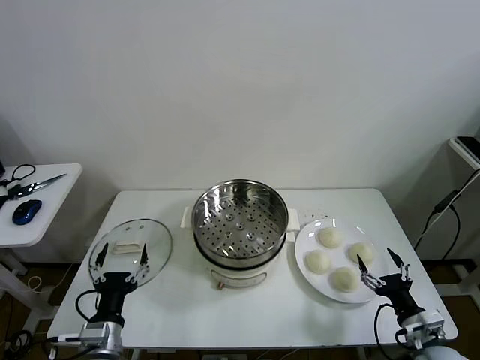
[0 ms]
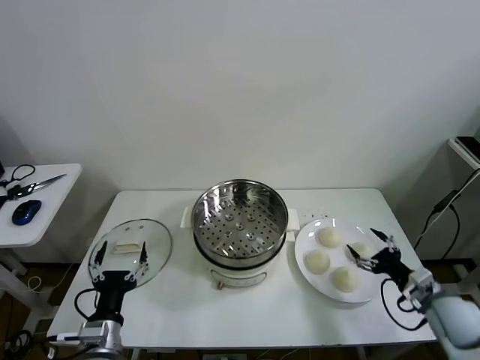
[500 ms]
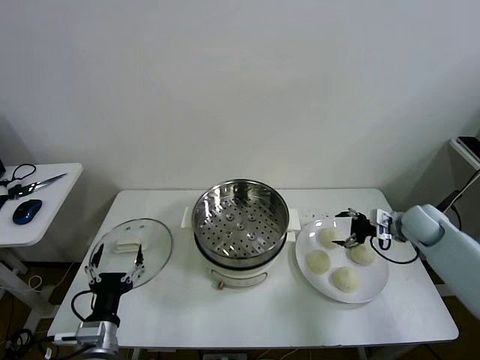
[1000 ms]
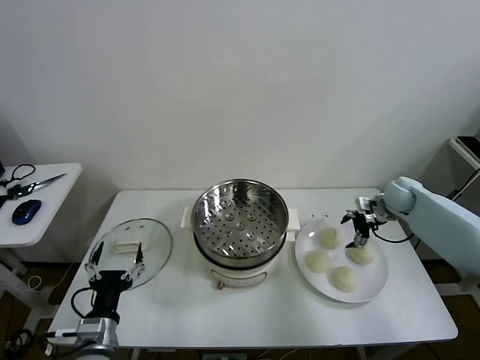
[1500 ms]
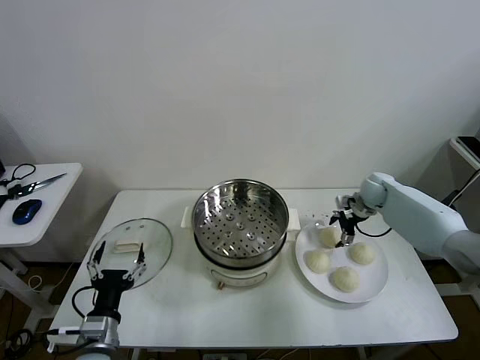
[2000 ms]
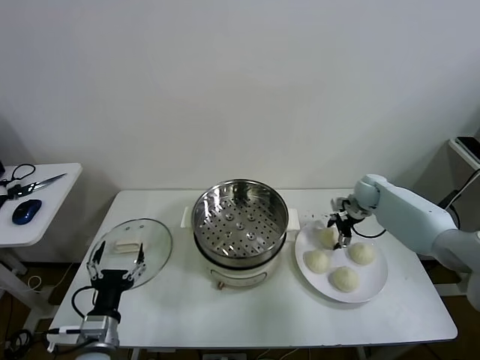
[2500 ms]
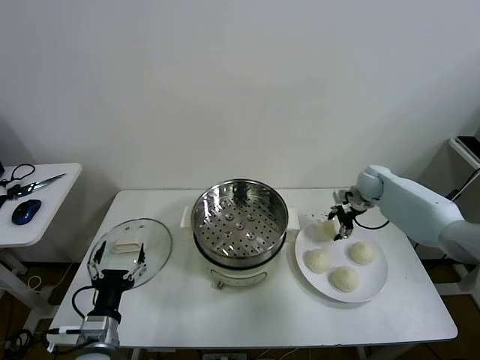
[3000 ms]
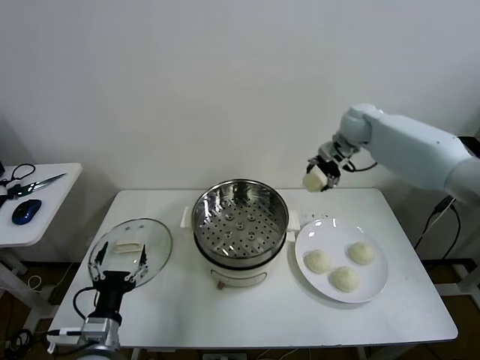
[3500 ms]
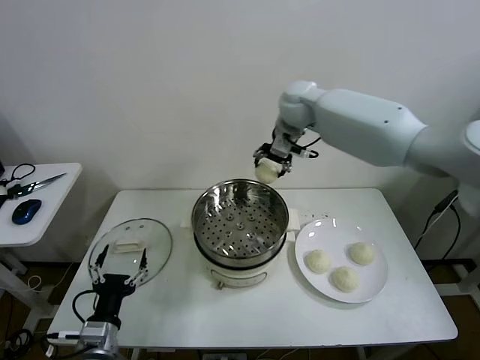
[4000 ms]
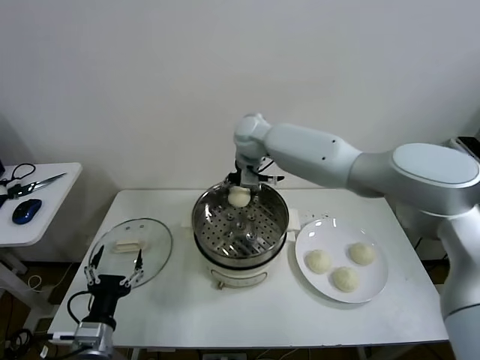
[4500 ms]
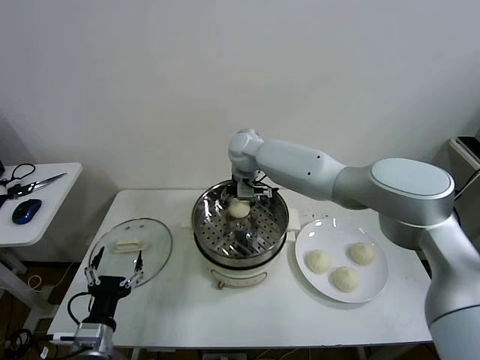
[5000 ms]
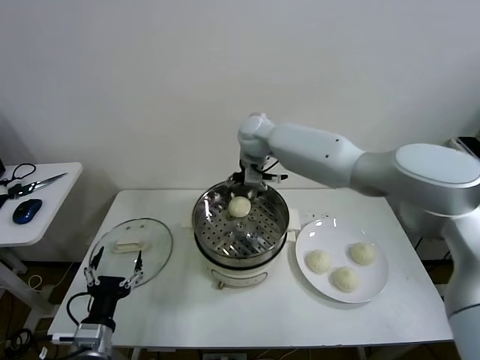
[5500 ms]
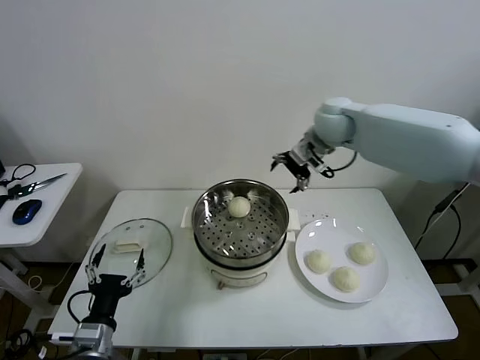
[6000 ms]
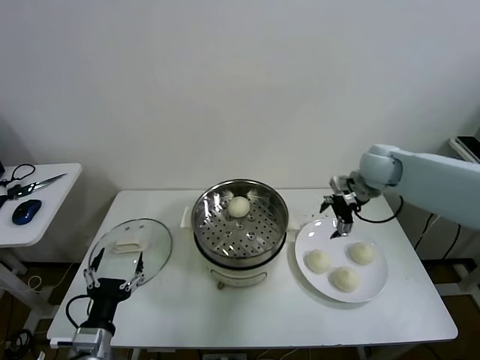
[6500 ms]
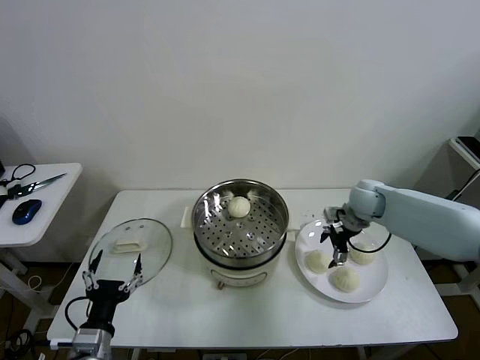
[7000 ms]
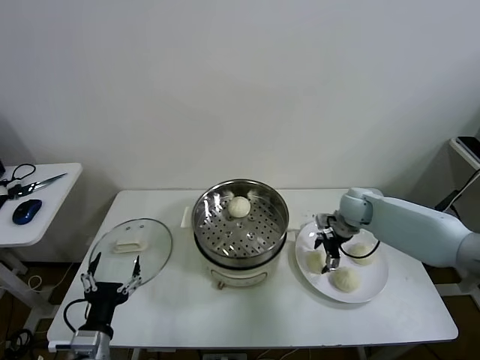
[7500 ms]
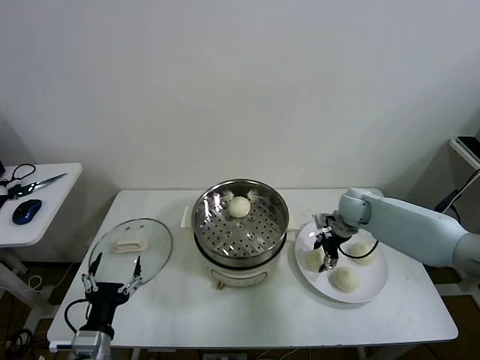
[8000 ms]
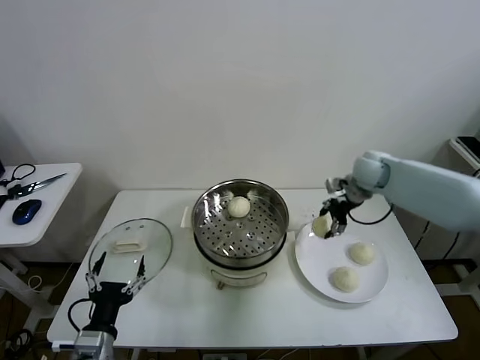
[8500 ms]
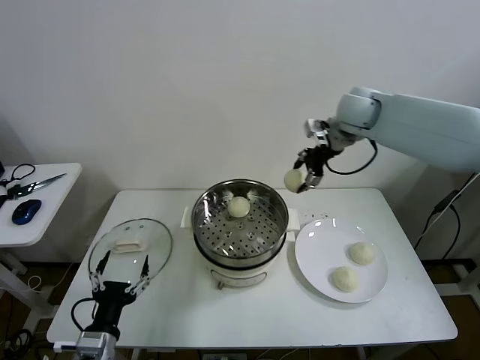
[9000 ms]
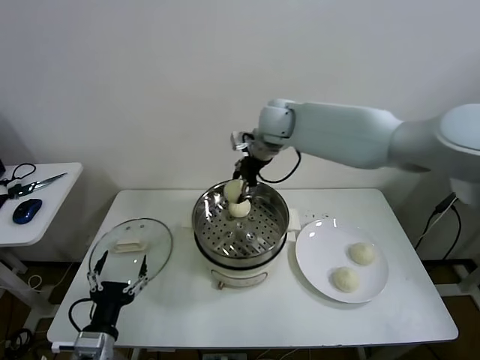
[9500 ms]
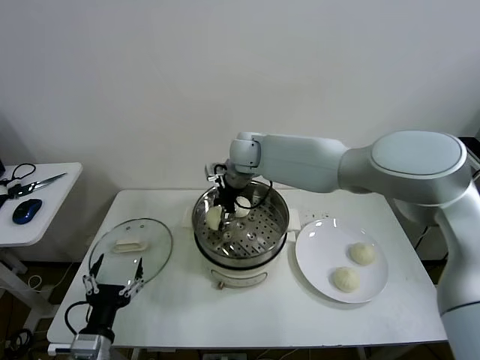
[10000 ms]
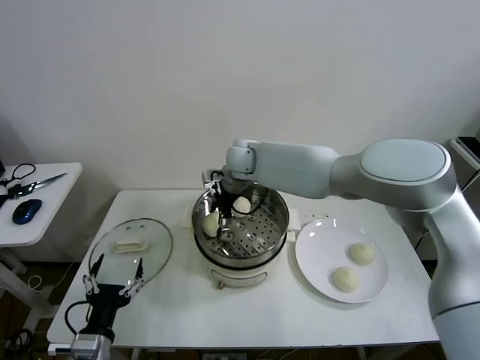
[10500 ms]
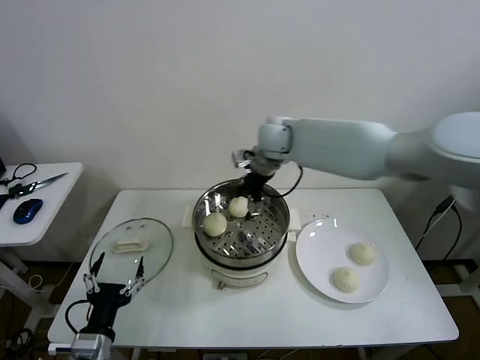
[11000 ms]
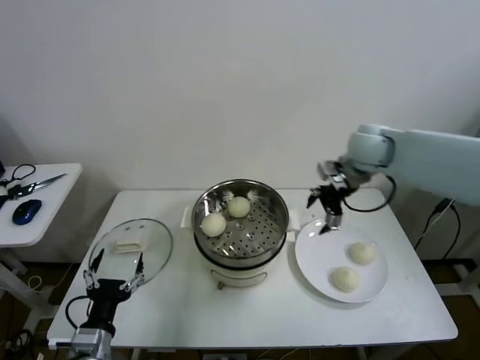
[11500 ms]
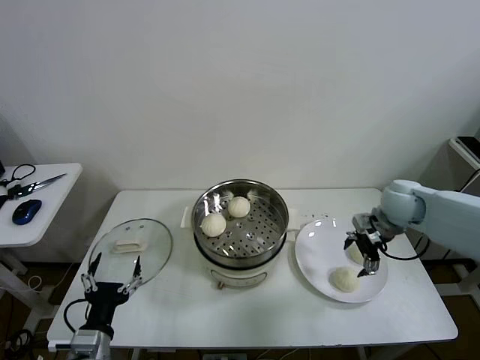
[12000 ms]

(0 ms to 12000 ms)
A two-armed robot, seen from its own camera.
Task of the whole recording: take steamed baozi put them in steamer then cover it.
Step, 0 ms - 2500 ms: Grasp the baozi in the plate with right gripper.
Step, 3000 ms - 5000 ms: Place the baozi on the steamer with right gripper.
Step, 5500 ms - 7500 ms: Grasp the baozi in the plate with right gripper.
Step, 8000 ms - 10500 ms: Place the baozi on the steamer with right gripper.
2000 ms - 4000 ms: The right gripper heads to the left and upward, covering approximately 35 cm, and closes its fingers.
4000 ms - 6000 ms: The right gripper heads to the right, covering about 15 cm, and opens.
6000 ms - 8000 ms: The right gripper moves downward, approximately 25 cm, and closes.
8000 ms - 10000 ms: The right gripper goes roughly 35 cm to the left and upward.
10000 ms - 12000 ms: The right gripper moves to the right, approximately 35 cm, and opens up.

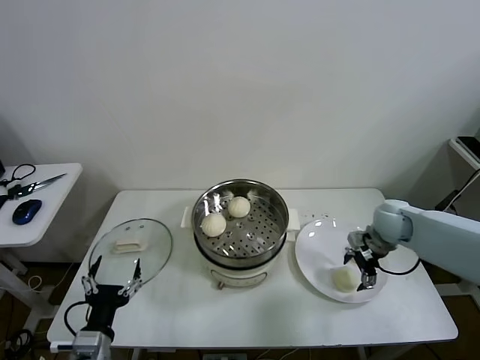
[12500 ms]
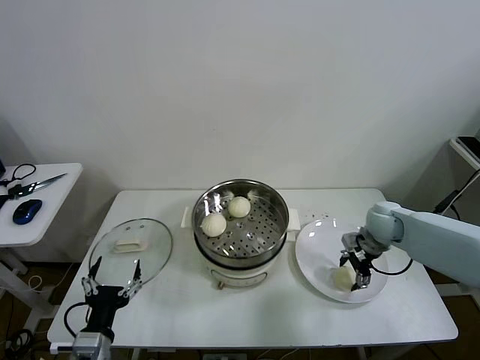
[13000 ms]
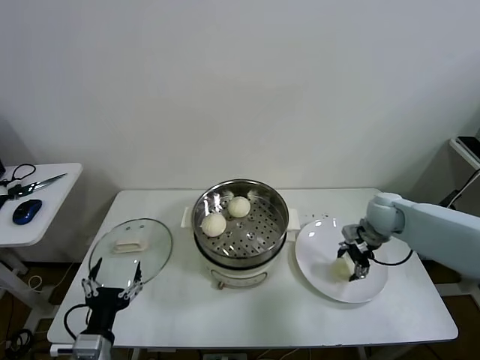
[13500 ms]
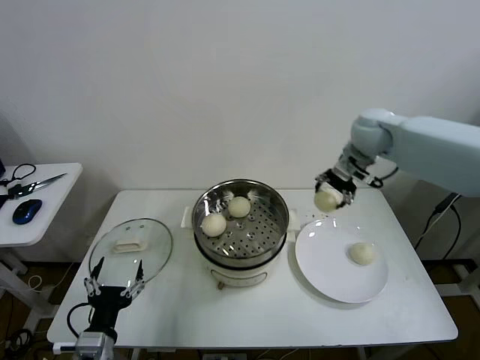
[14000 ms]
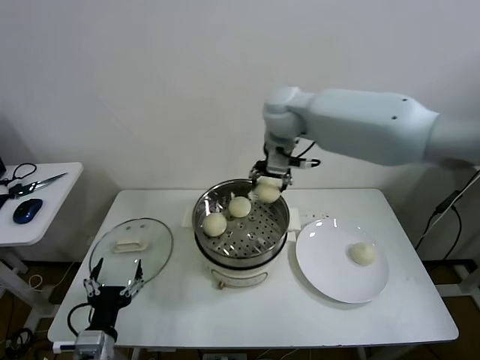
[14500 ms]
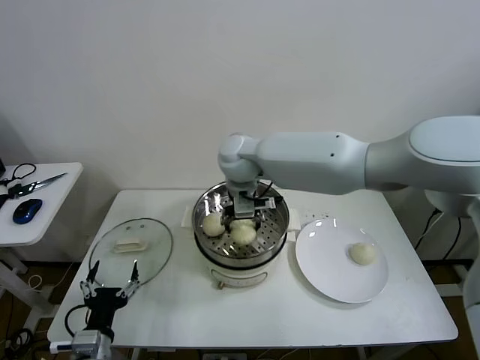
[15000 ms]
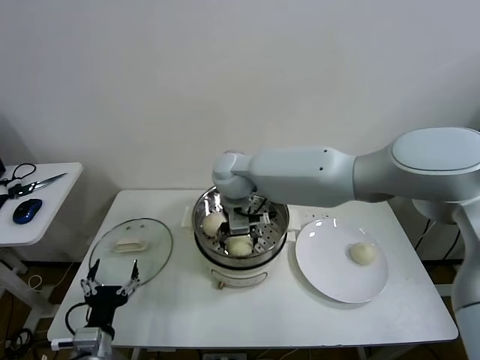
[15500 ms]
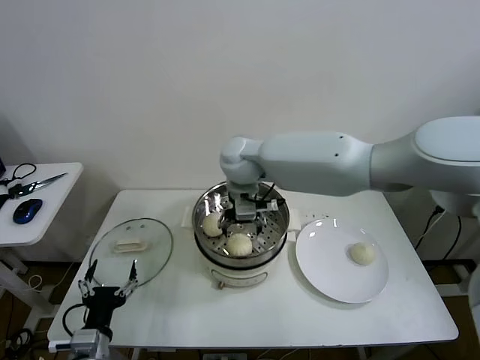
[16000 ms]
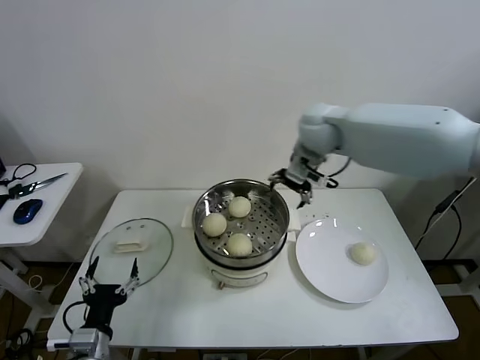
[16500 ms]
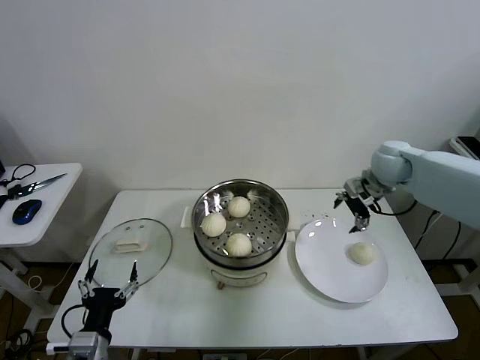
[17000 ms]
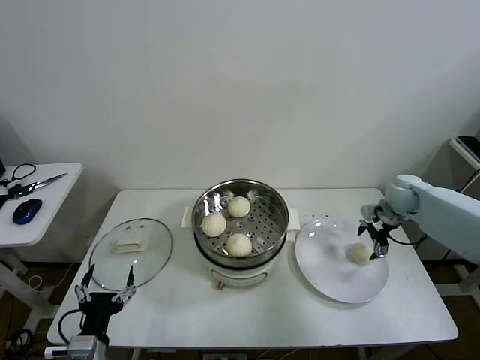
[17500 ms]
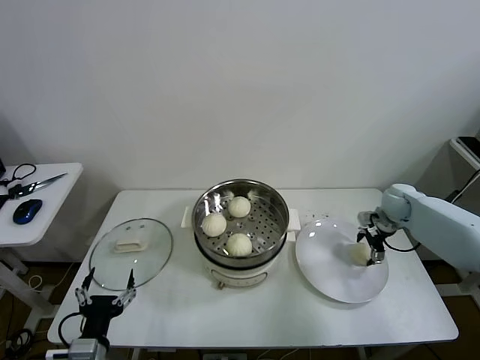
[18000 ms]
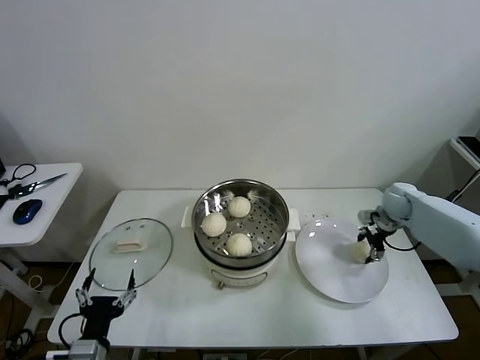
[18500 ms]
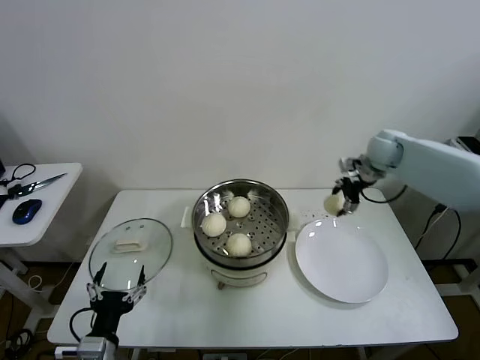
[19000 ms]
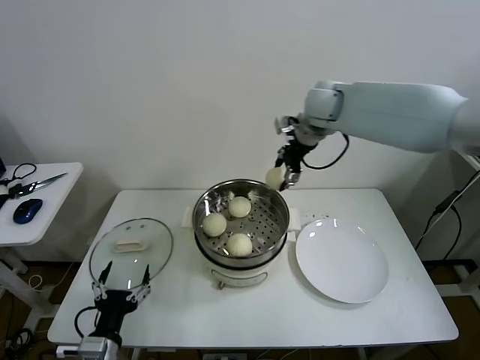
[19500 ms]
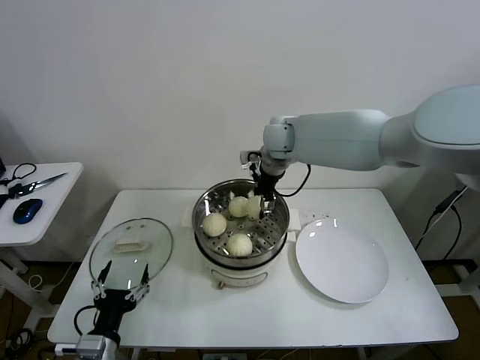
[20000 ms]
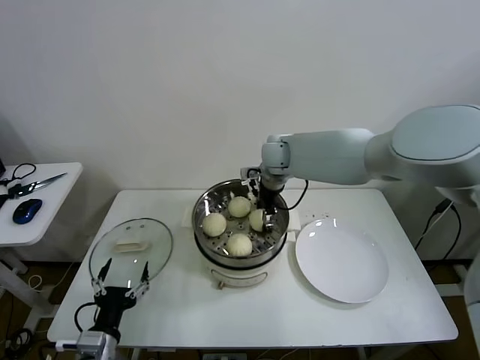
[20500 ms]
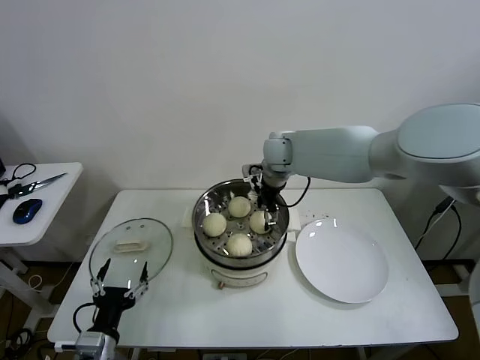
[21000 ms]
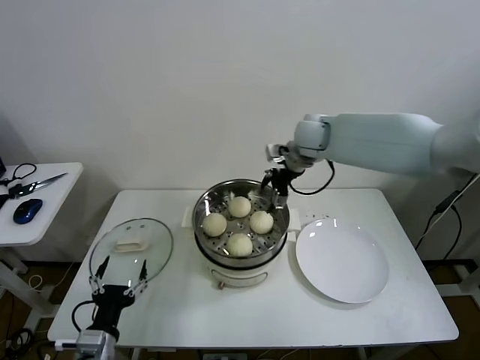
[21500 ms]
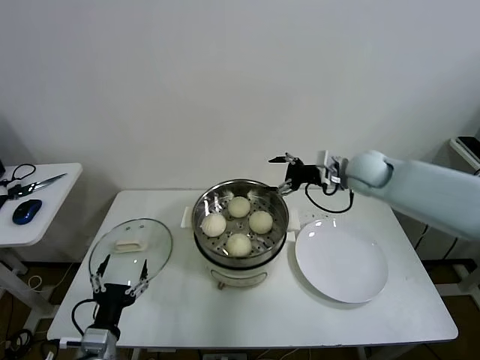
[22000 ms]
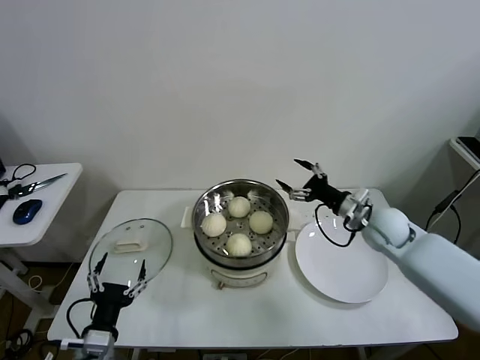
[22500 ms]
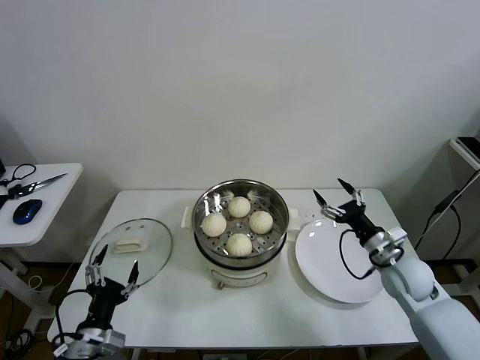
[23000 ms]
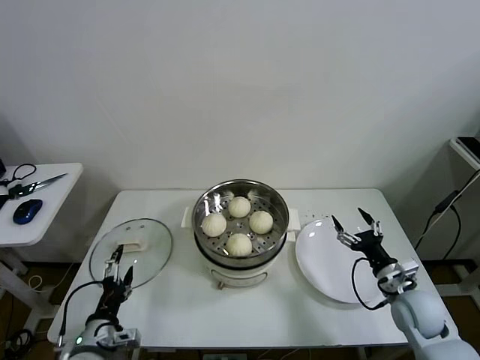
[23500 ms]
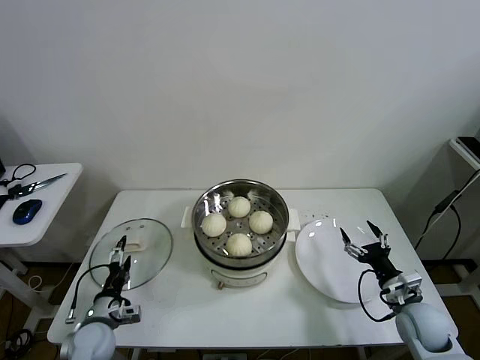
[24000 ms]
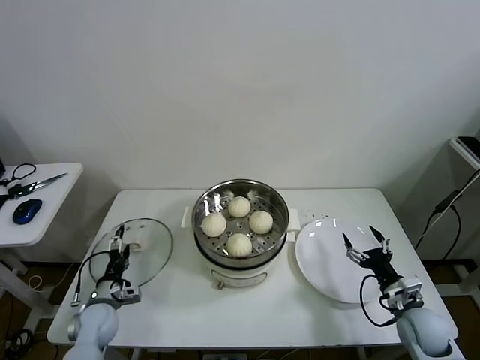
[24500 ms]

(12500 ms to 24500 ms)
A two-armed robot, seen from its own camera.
Task of the whole recording: take steamed baozi put them in steamer then cover it.
Step, 13500 ms - 15500 ms: Place the baozi on the steamer with right gripper.
Step, 16000 ms - 18000 ms: Grasp the baozi in the plate with right gripper.
Step, 19000 ms - 20500 ms: Place the baozi on the steamer with right gripper.
12500 ms - 14500 ms: The right gripper moves to the left and upward, roughly 40 cm, and closes its fingers.
14500 ms - 16500 ms: The right gripper moves to the right, about 10 cm, and opens its fingers.
16500 ms - 18500 ms: The right gripper moves to the right and downward, roughly 35 cm, and closes.
18500 ms - 20500 ms: The right gripper moves to the left, some 35 cm.
20500 ms - 22500 ms: The right gripper travels to the right, backward and downward by about 30 cm, and opens.
22500 ms - 24500 ms: The right gripper is displaced backward, downward and to the right by roughly 25 cm. The left gripper moves forward, downward and to the left, about 20 cm.

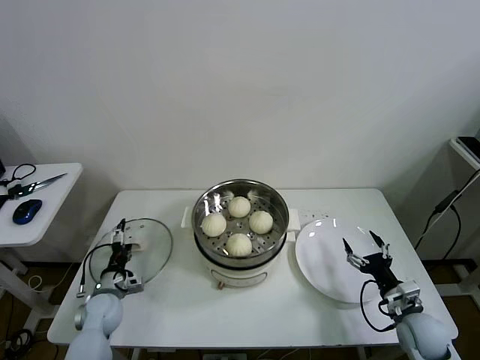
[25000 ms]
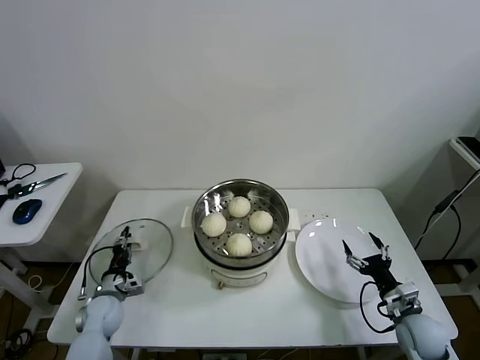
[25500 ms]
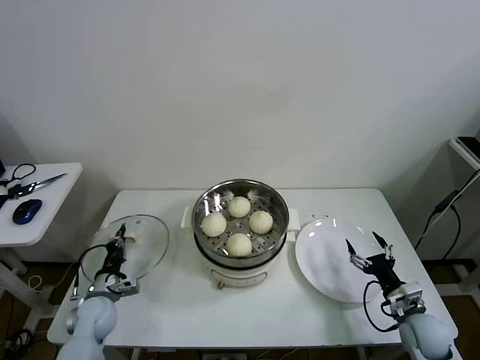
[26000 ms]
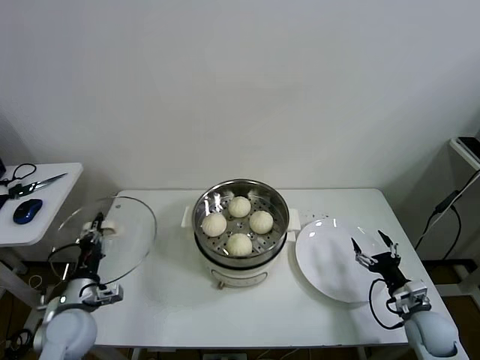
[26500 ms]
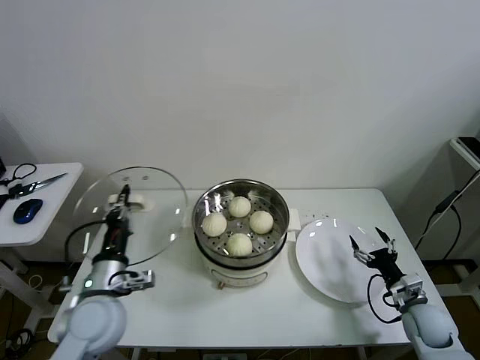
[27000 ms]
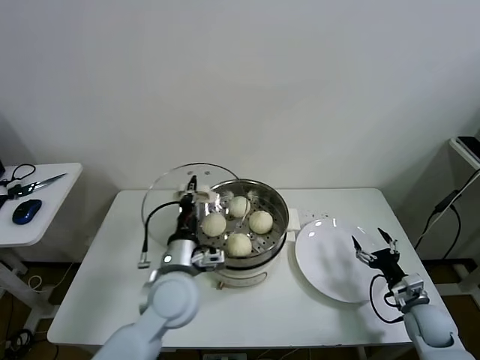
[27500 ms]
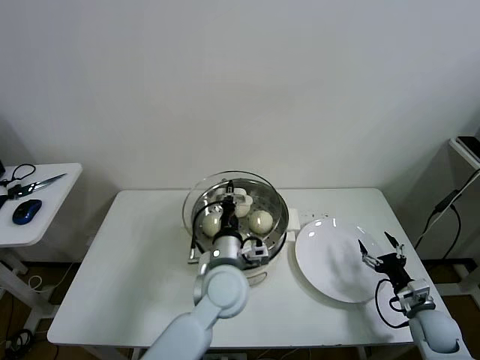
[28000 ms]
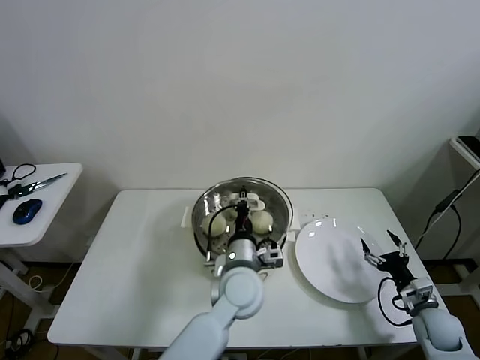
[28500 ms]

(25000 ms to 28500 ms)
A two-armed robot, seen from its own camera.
Task of the whole recording: take steamed baozi put them in steamer then cover it.
25000 ms - 27000 ms: The left gripper moves upward, to the right and backward, some 20 cm, and closes its fingers.
27000 ms - 28500 ms: The left gripper heads to the right, covering approximately 25 cm.
